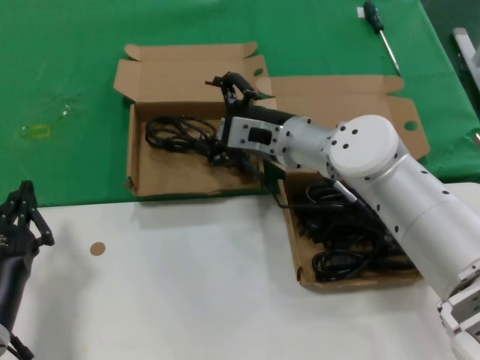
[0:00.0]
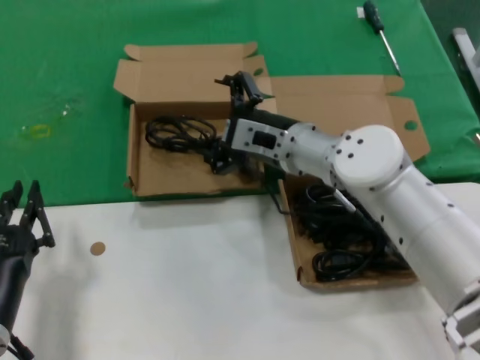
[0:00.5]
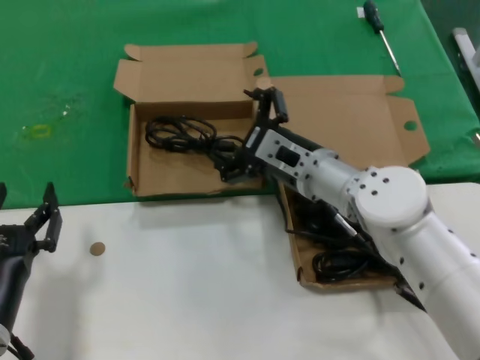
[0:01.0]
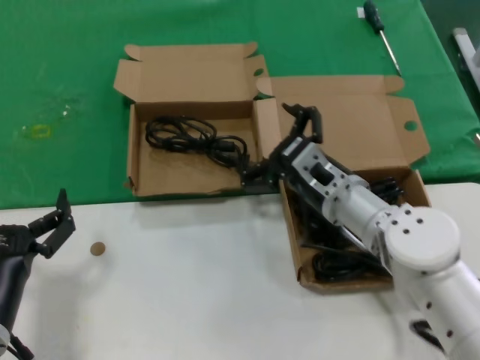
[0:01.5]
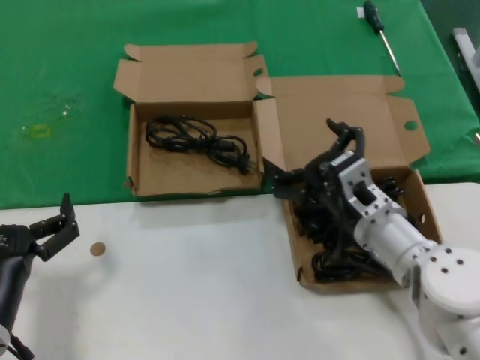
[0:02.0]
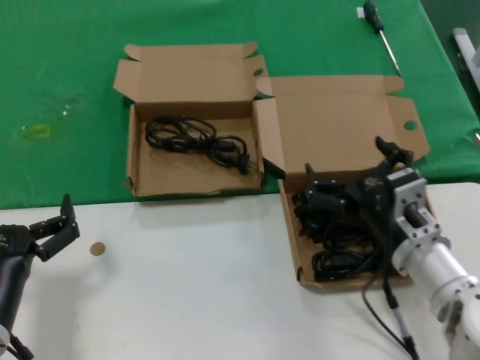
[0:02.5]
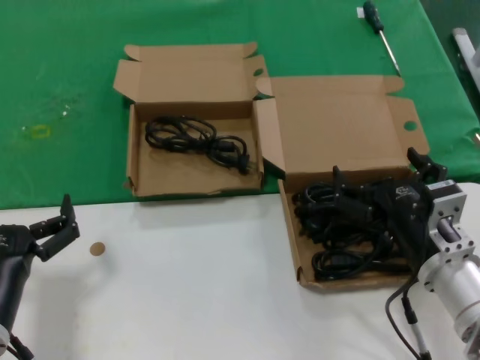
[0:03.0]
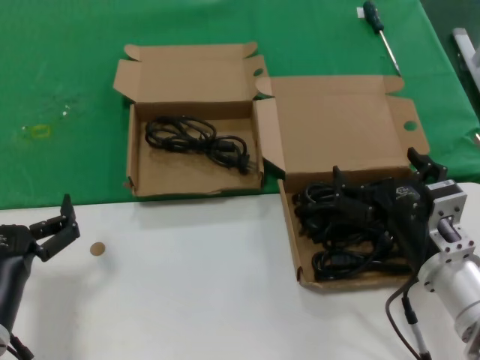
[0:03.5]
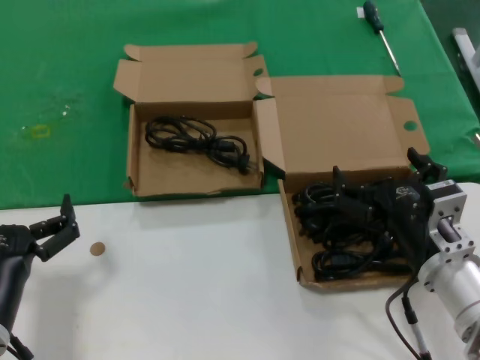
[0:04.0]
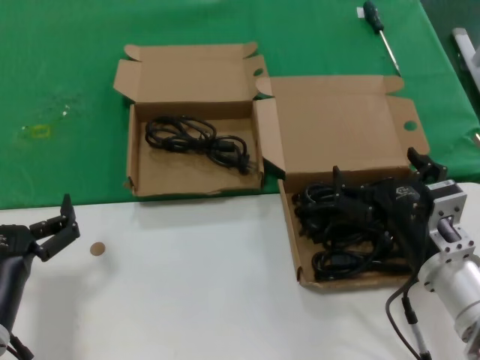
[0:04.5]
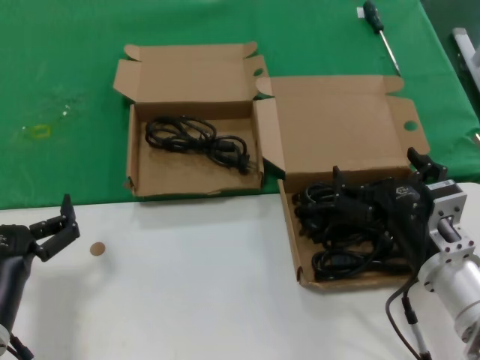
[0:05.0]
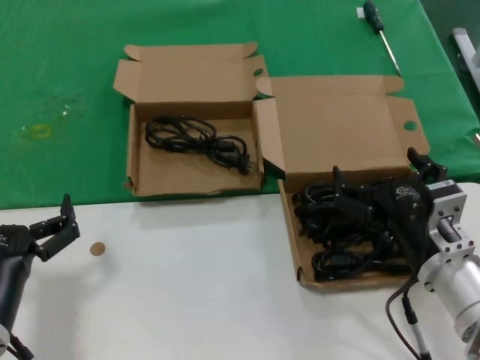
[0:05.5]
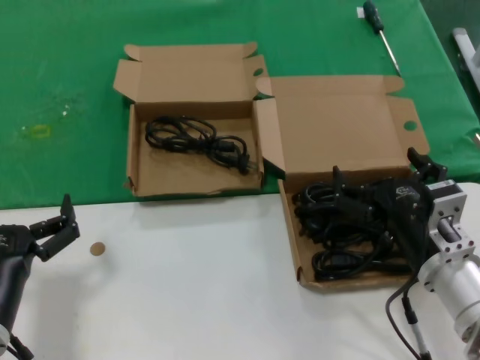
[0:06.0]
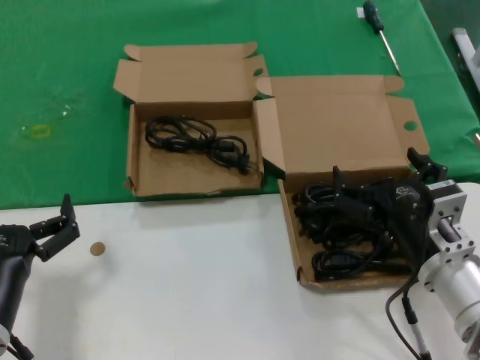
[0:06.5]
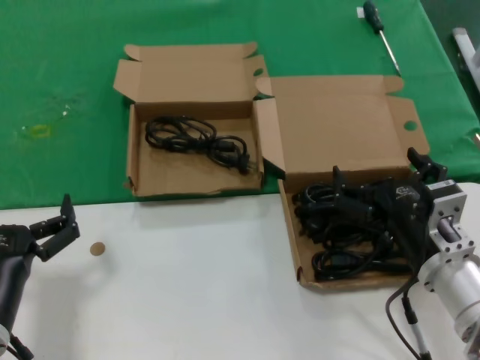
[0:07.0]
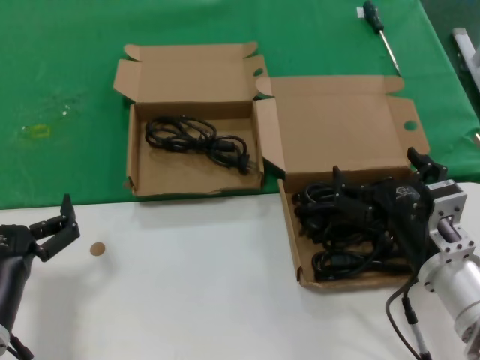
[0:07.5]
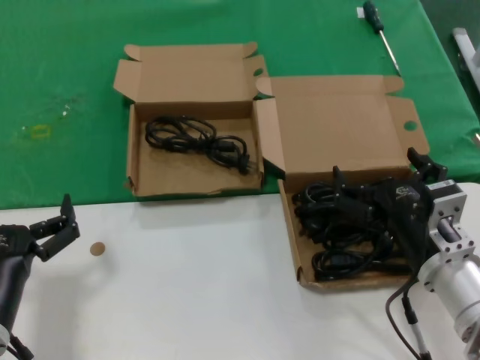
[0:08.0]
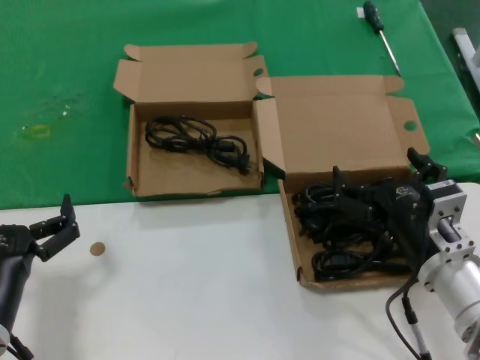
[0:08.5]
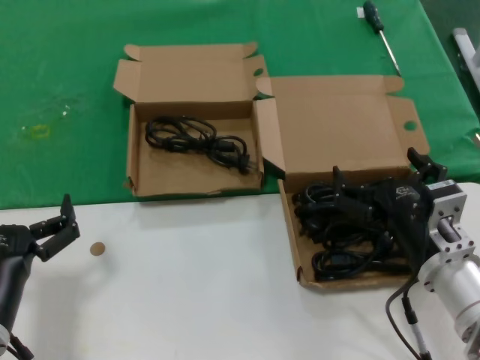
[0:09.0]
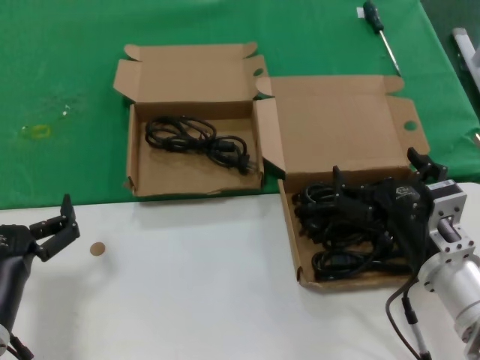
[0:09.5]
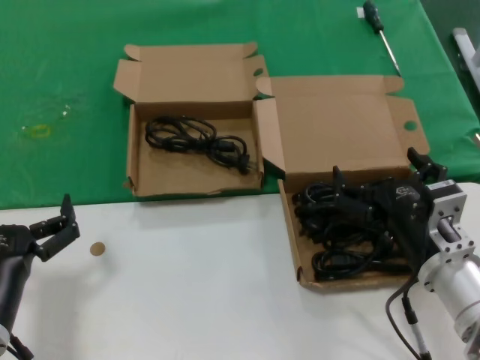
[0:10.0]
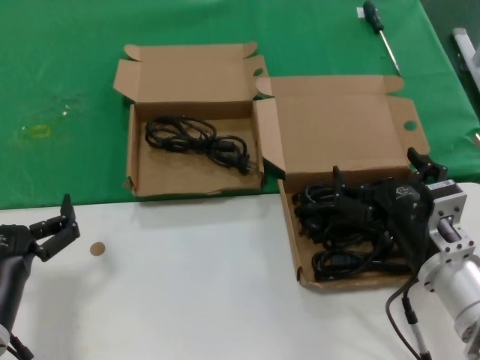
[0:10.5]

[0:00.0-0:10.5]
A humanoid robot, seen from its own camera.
Task of the whole recording: take the parts from the box containing them and put them into an empty box.
0:00.0 to 0:02.0: The right hand moves backward, downward and to the right, some 15 cm.
0:02.0 to 0:04.0: The right hand moves backward, some 10 cm.
0:04.0 to 0:10.5: Both hands stay about where they are.

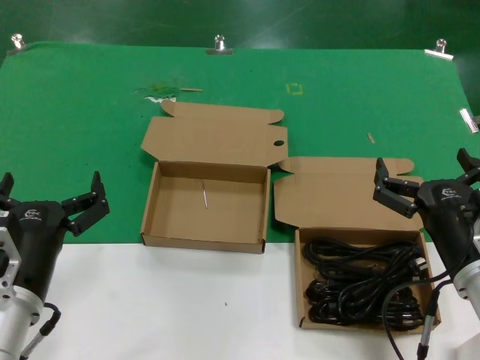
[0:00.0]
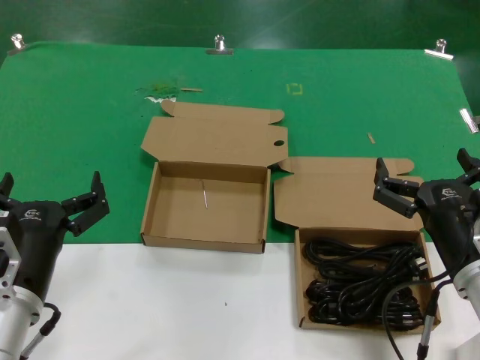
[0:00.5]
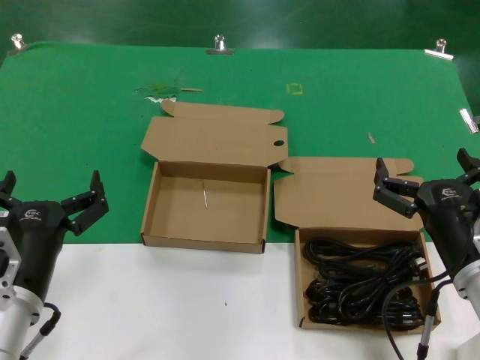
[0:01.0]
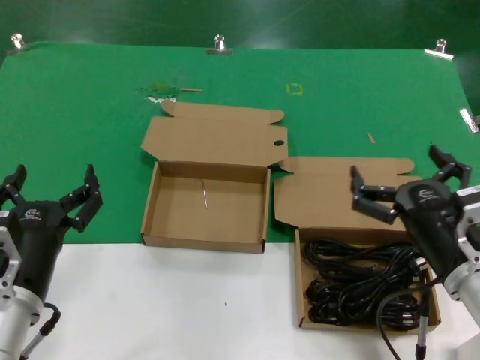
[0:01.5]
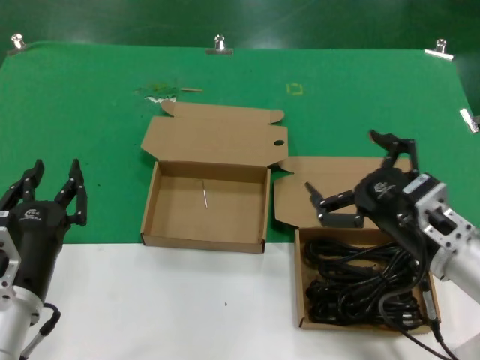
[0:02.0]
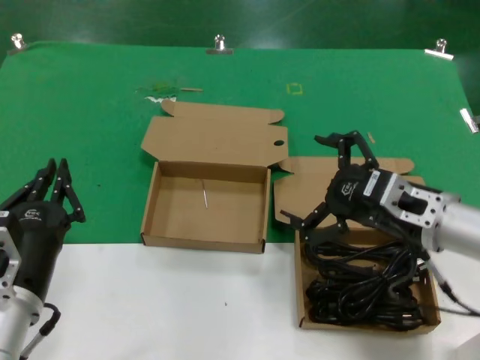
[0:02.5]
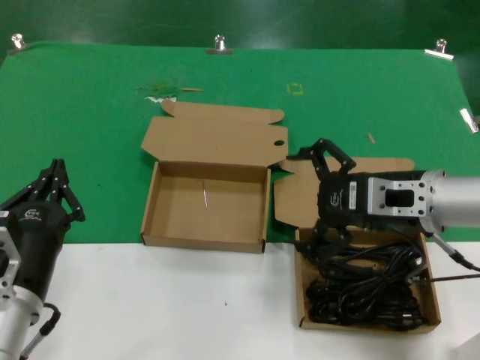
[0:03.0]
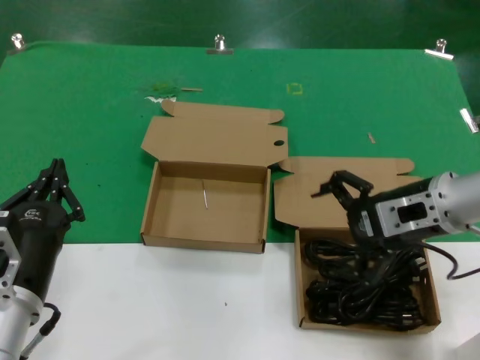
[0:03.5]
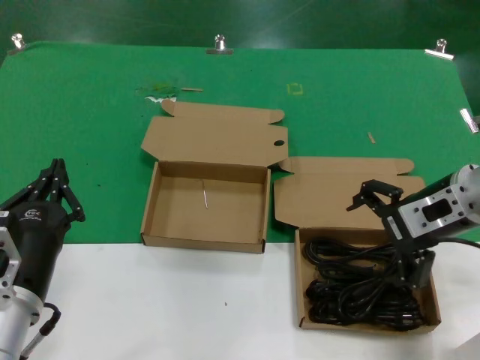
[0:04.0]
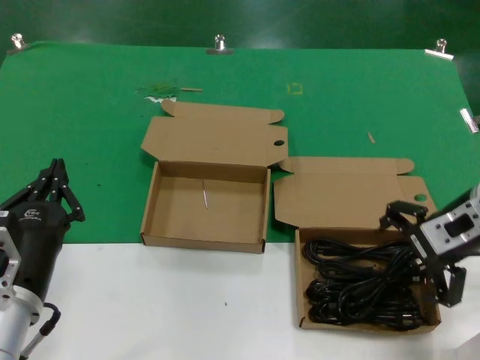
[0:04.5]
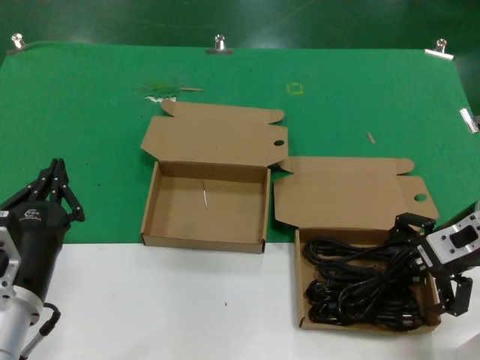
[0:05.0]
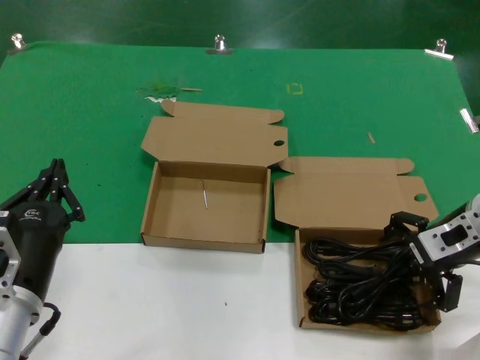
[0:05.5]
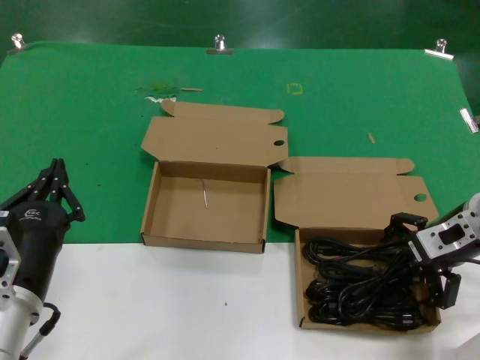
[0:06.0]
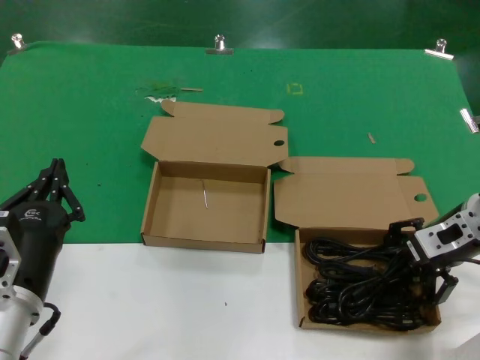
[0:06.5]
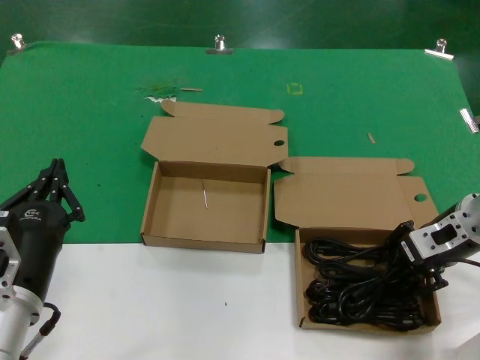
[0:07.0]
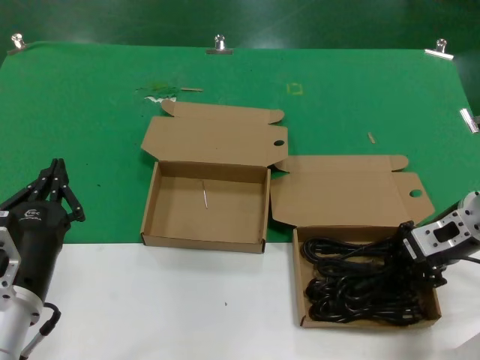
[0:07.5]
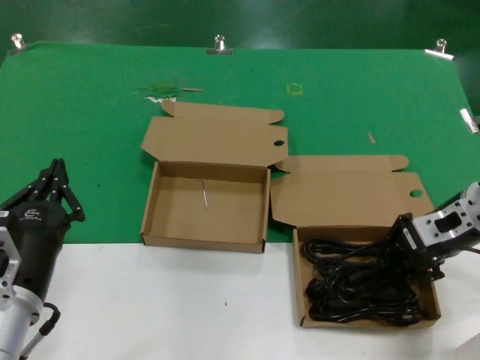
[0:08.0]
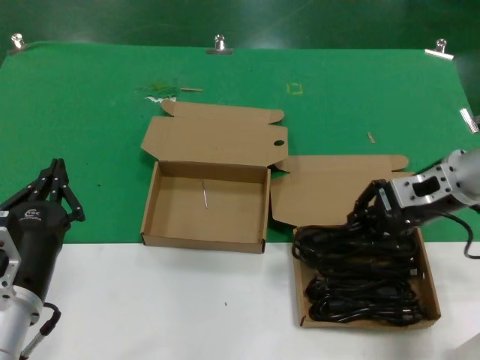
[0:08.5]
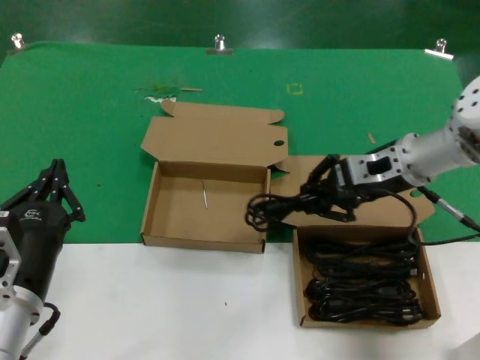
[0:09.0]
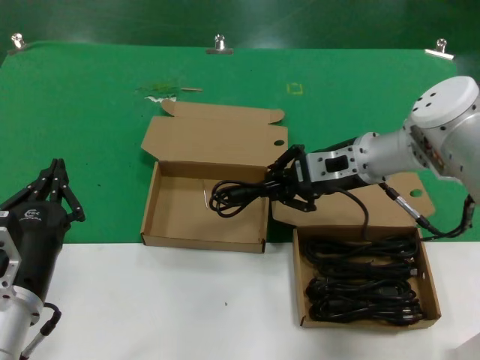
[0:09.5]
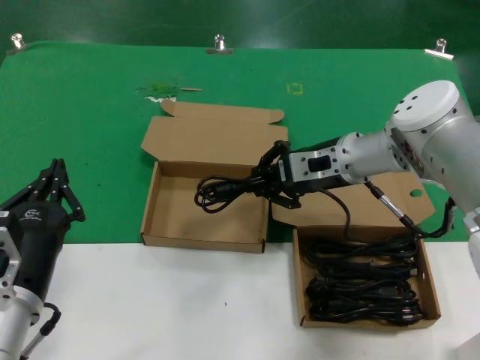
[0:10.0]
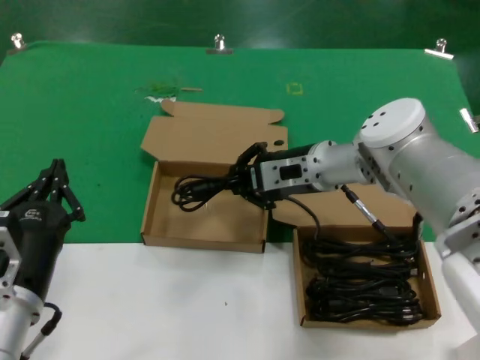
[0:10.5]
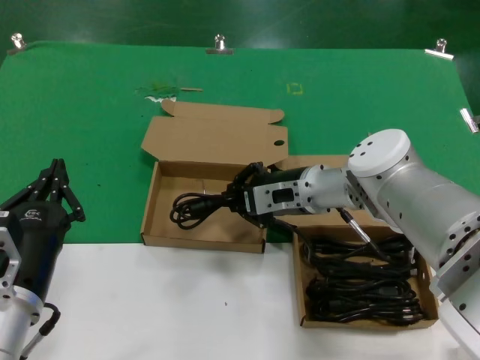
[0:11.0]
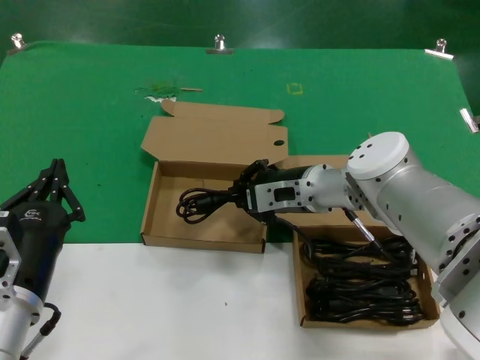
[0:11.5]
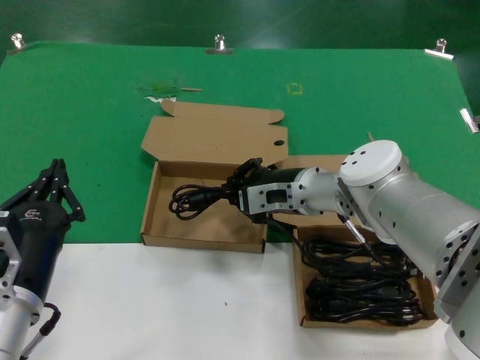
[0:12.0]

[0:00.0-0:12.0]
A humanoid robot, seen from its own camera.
Task of the whole recording: take the parts from the box containing them and put them into an empty box.
Step, 0:00.0 to 0:07.0: Grasp the data cable.
0:02.0 to 0:04.0: The right hand moves forward and upward, approximately 15 cm.
0:04.0 to 0:06.0: The right hand heads downward, covering approximately 5 cm.
0:06.0 to 0:08.0: There are only small adjustments of the hands.
0:08.0 to 0:10.0: The right hand heads to the left and forward, covering about 15 cm.
0:10.0 to 0:12.0: The right hand heads downward and to the left, covering approximately 10 cm.

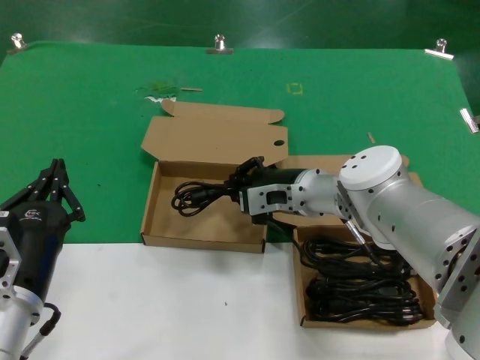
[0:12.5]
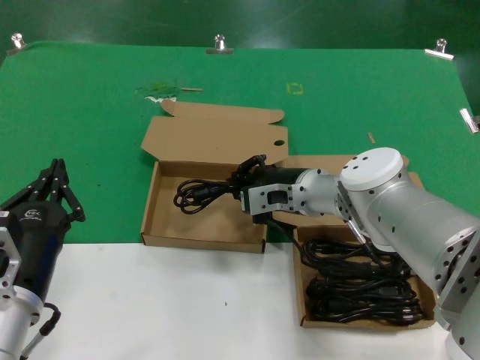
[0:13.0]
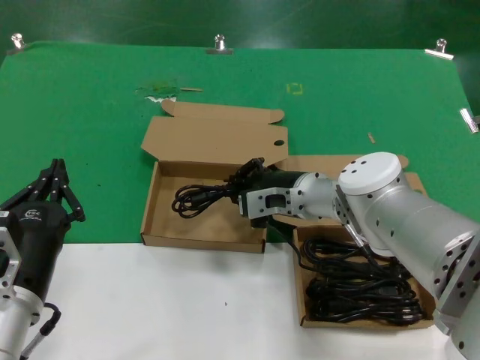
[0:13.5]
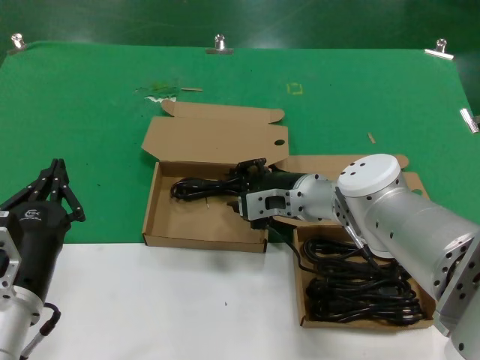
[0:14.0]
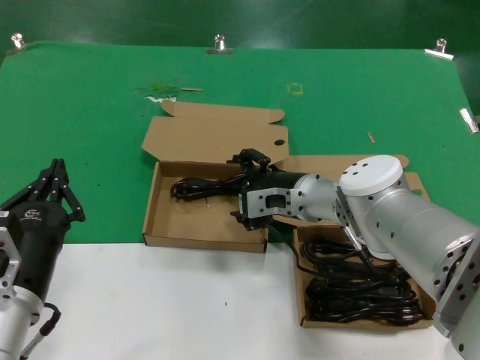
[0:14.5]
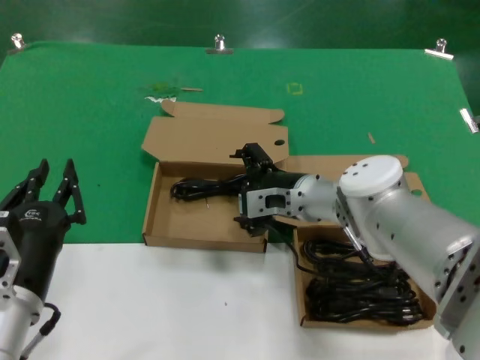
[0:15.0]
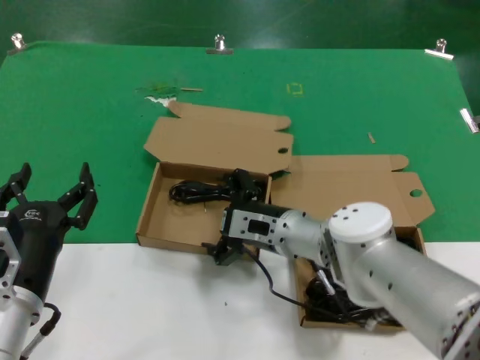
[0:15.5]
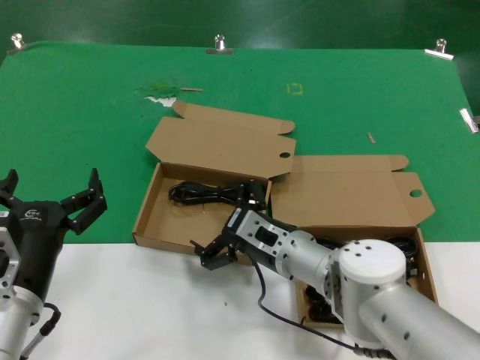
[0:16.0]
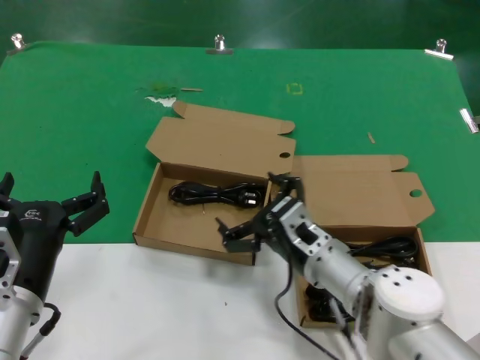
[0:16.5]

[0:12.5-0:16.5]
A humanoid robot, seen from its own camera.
Task of the whole recording: take the parts from the box containing them and put them into an empty box.
0:12.5 to 0:14.5: Both hands stay put.
0:14.5 to 0:16.5: The right hand is displaced backward and downward by approximately 15 cm.
